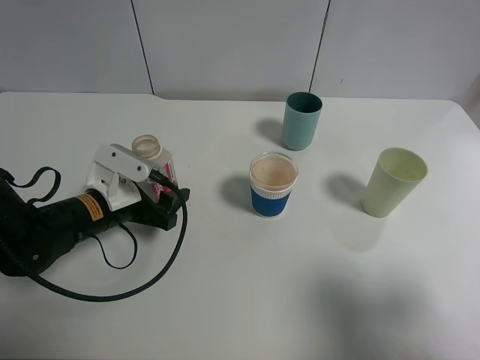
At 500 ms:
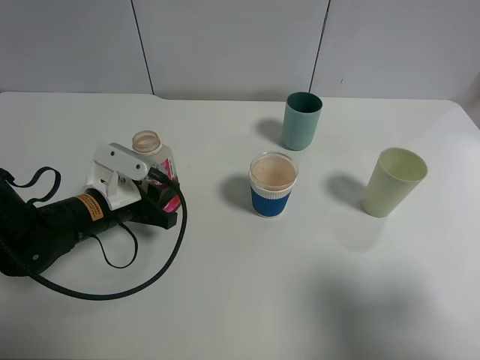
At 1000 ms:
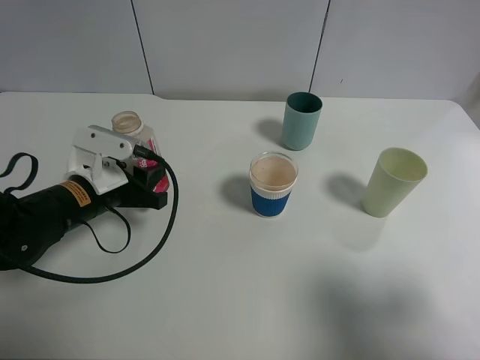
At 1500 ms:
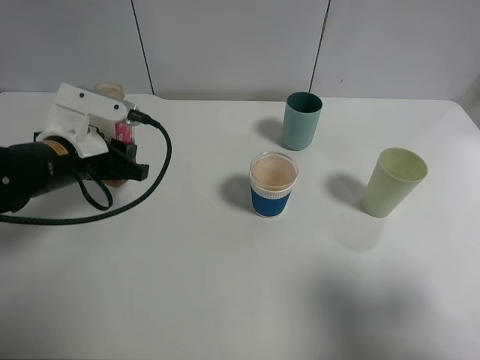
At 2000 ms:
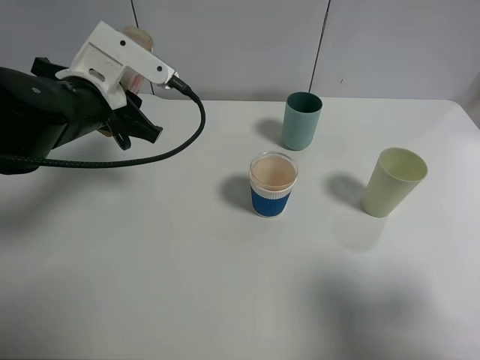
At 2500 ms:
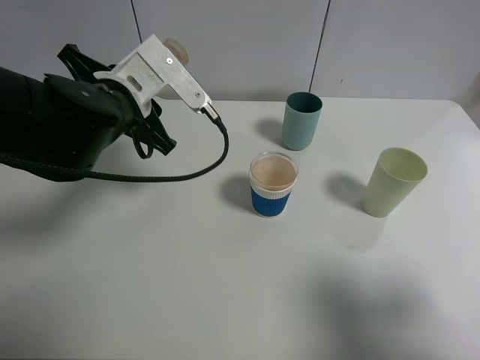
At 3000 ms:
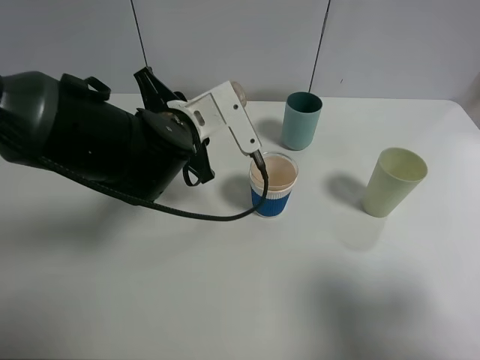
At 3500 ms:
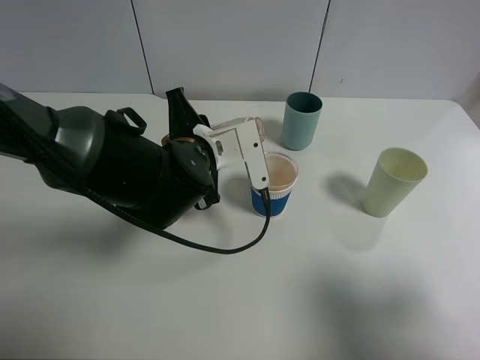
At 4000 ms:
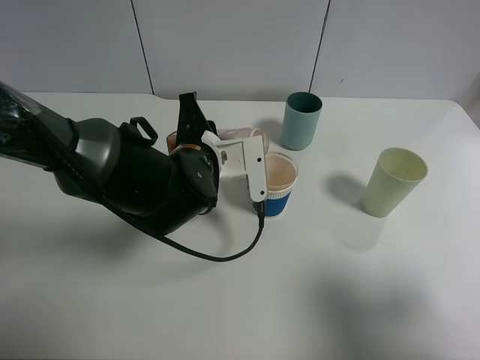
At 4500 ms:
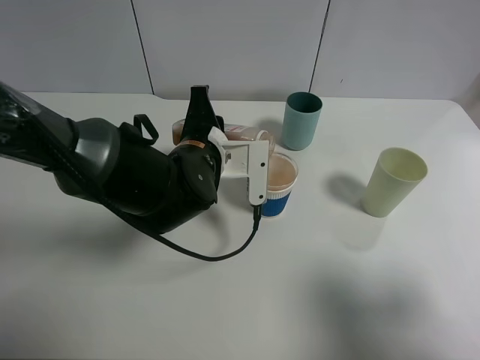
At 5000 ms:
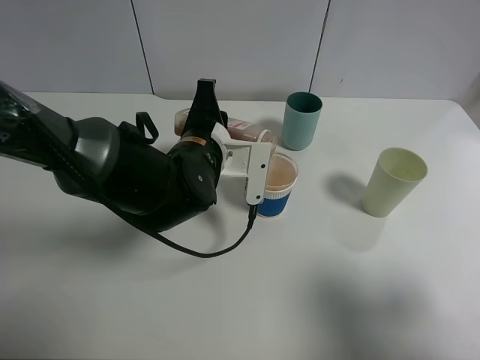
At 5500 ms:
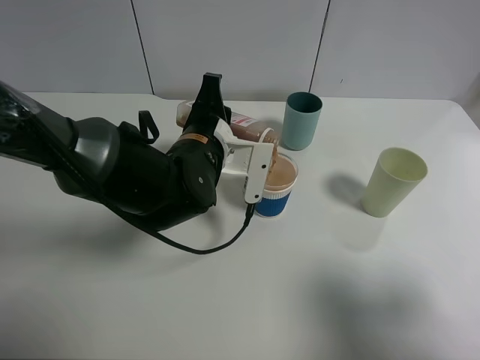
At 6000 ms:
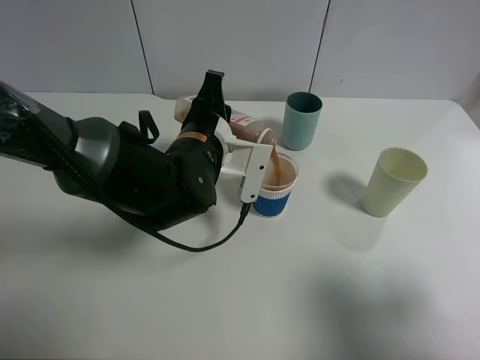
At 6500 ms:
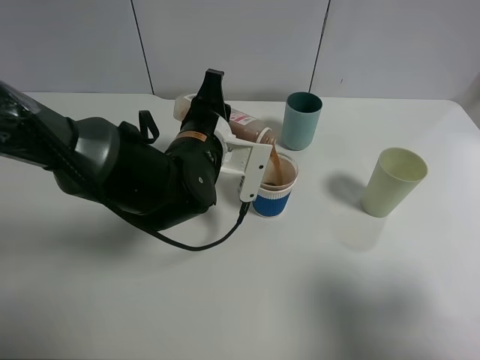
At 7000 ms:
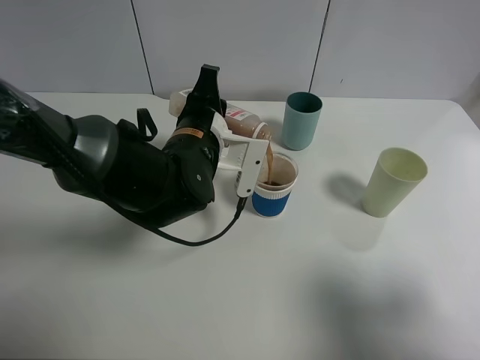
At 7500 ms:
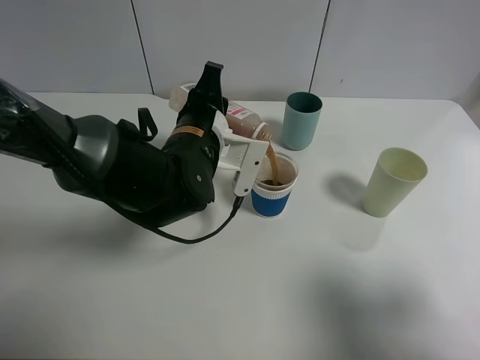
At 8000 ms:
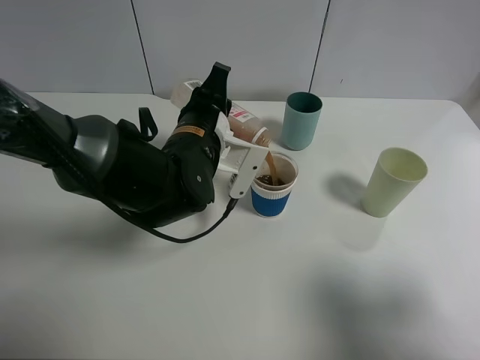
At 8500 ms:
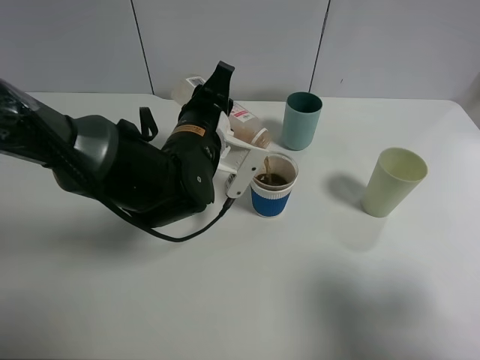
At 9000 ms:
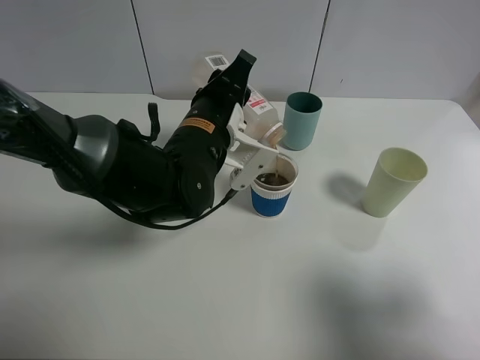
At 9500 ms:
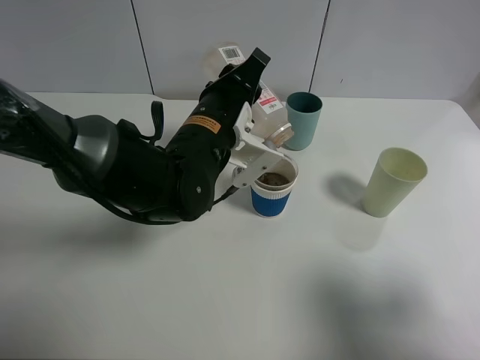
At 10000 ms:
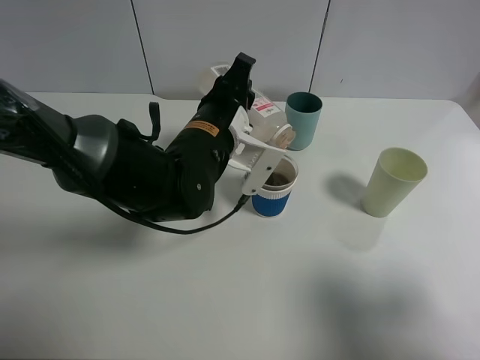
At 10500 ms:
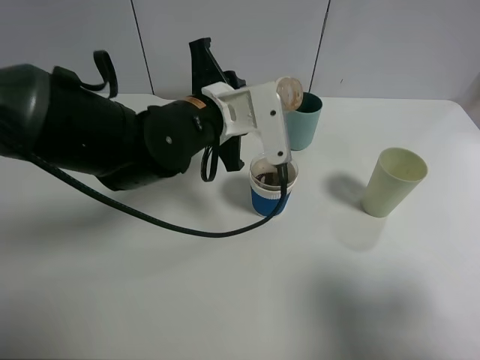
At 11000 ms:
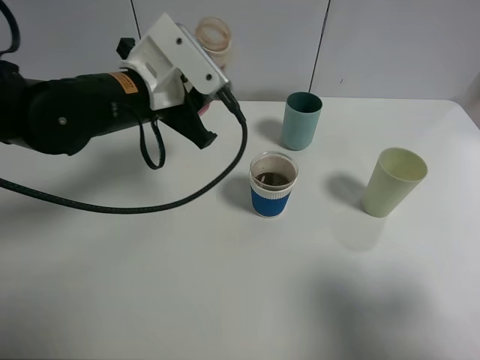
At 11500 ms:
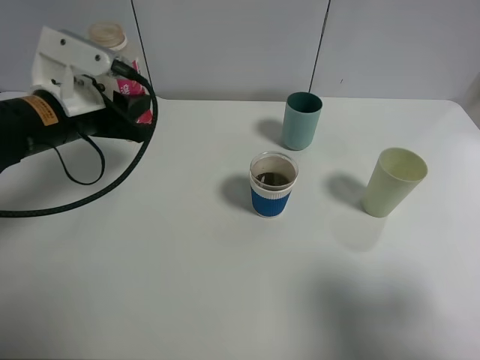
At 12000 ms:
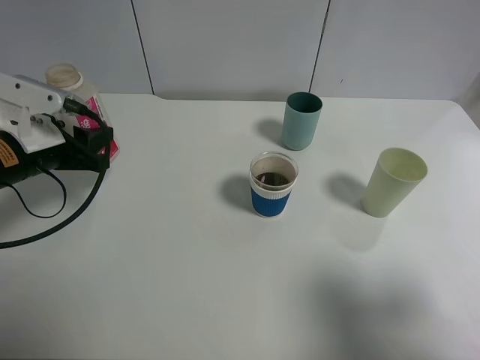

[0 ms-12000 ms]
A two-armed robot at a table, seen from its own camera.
Task of the whole recording: use a clamp to hold the bottle of the drink, pour the beverage into a random cup, then clamp the cup containing the drink and pour the drink into another random cup.
Step, 1000 ms to 10000 ms: Pour the drink into the paper cup with left gripper.
0 ms to 2000 ms: The left gripper goes roughly 15 cm upward, and closes.
2000 ms to 4000 ms: The left gripper moves to the right and downward, approximately 15 cm.
6000 ms to 8000 ms: The grippers move only a little.
10000 ms to 12000 ms: The left gripper moves to the left, roughly 20 cm.

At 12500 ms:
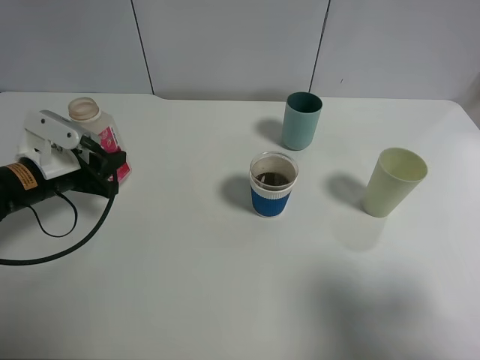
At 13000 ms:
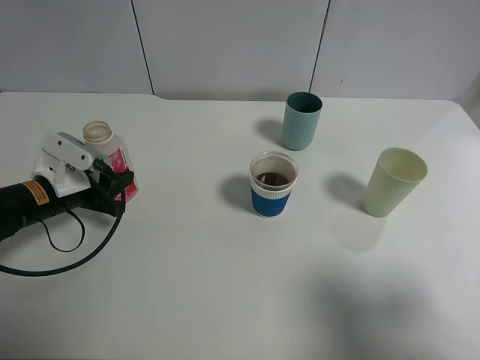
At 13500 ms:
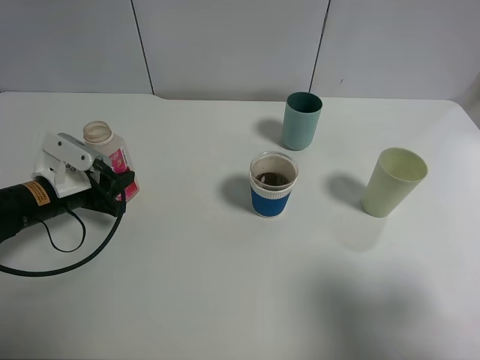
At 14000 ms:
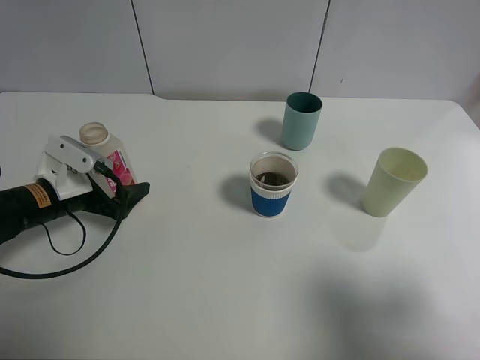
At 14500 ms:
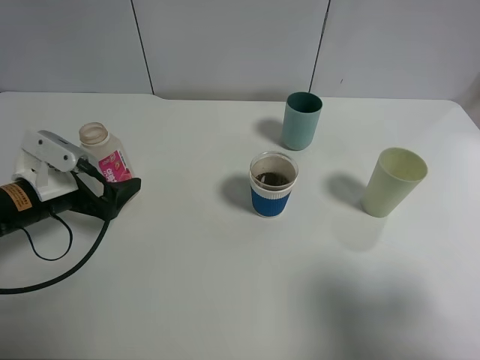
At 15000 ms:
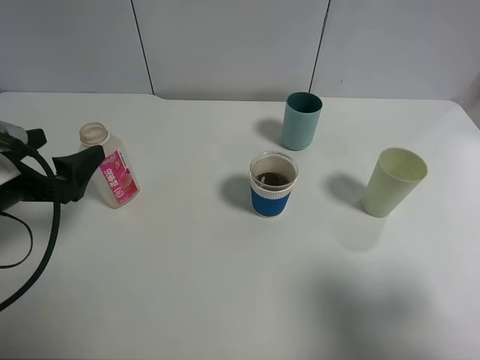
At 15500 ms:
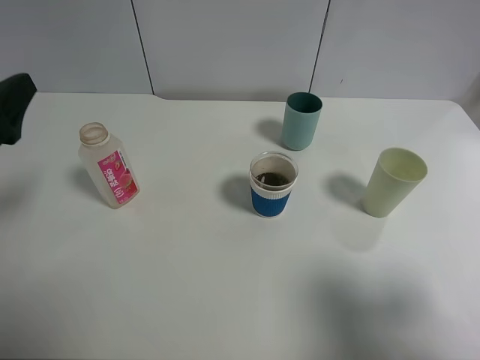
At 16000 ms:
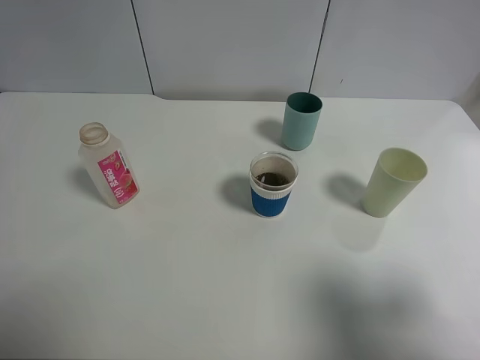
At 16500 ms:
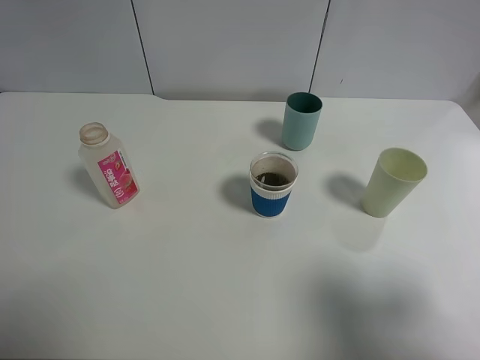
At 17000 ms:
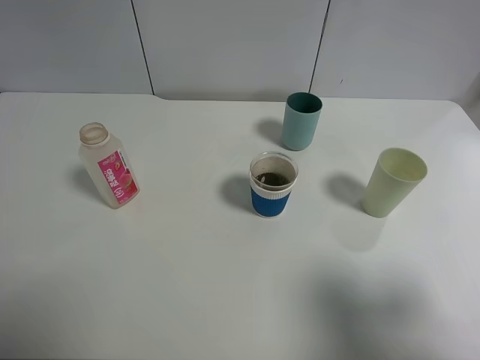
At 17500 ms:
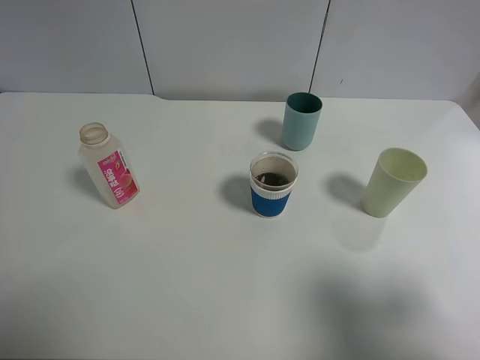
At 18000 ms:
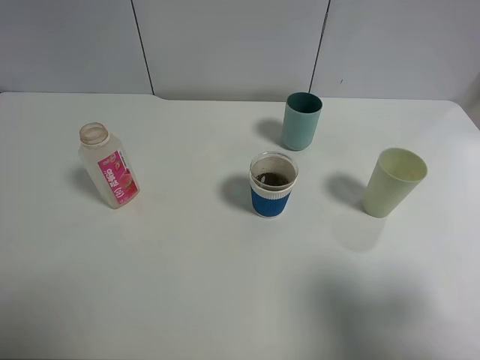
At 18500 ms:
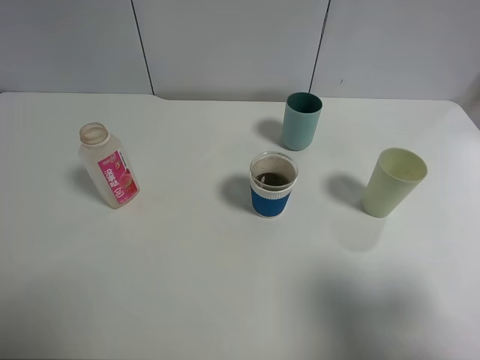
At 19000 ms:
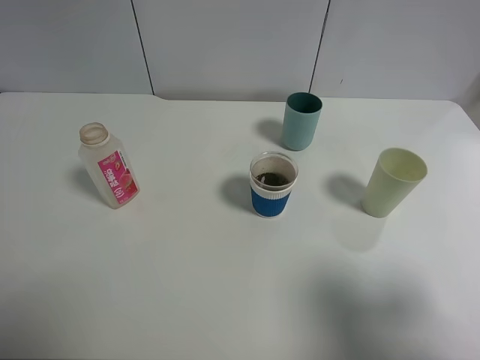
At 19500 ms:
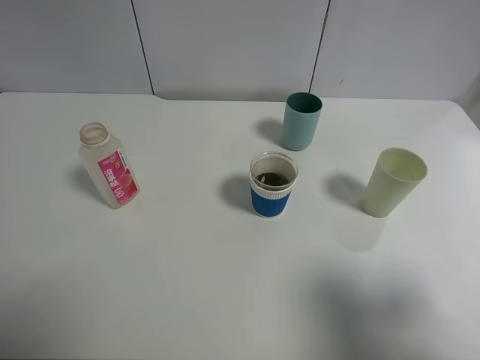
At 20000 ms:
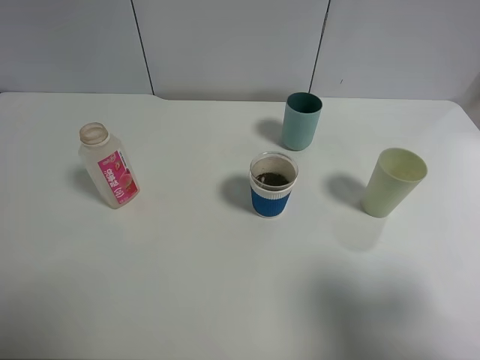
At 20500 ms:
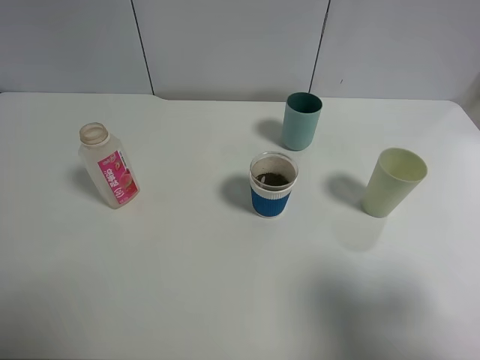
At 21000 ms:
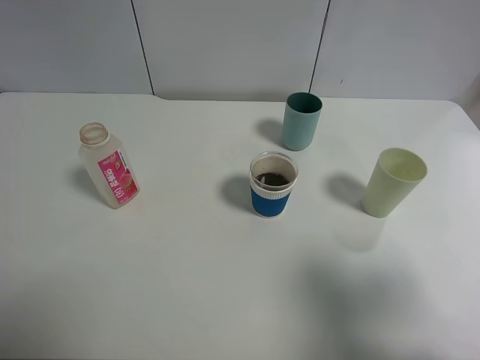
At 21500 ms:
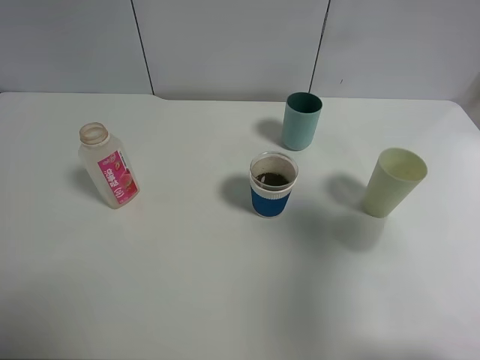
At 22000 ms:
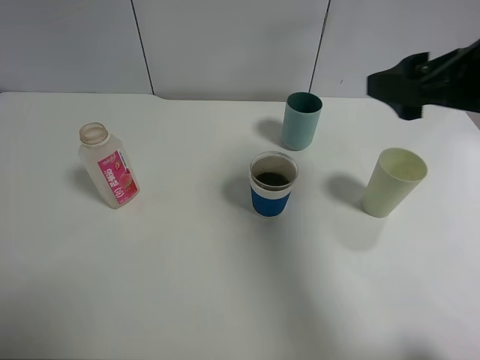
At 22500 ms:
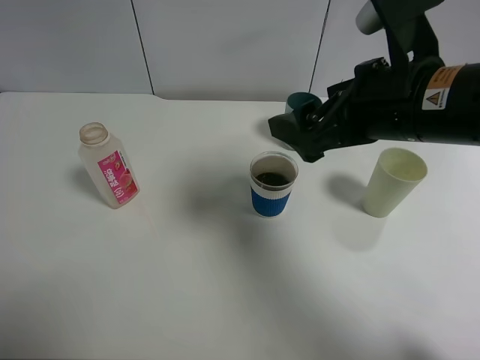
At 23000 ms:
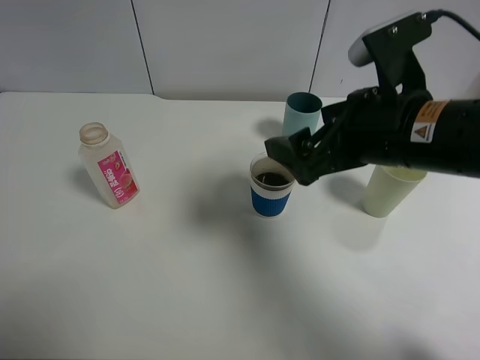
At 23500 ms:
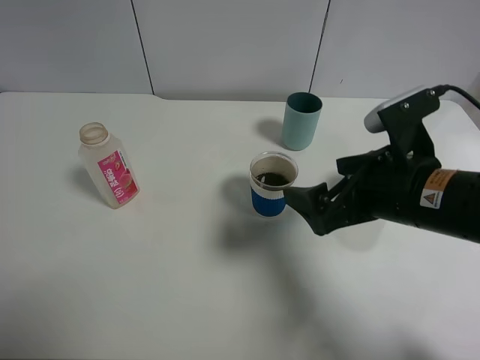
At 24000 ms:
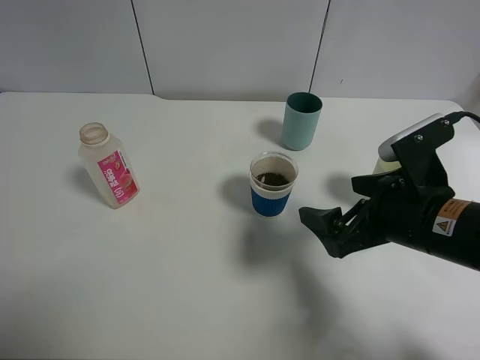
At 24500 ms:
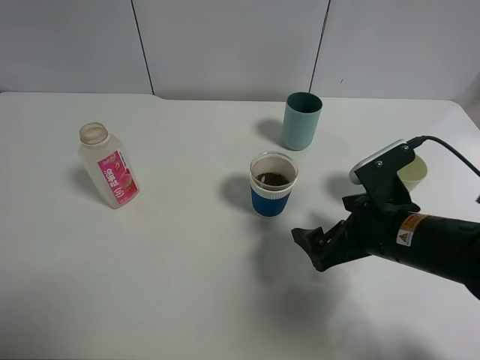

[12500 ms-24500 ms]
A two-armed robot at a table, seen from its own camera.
Task of the whole recording: use a clamp to hold the bottle of the drink, pour the beverage into a random cup, then clamp the cup containing the drink and pour the drink into another random cup.
Step, 12500 ms to 14500 ms: Place the drink bottle on the table with left gripper.
12500 ms to 14500 ms: The left gripper opens.
14500 ms to 16500 ms: The left gripper is displaced upward and backward by about 25 cm.
18500 ms to 20500 ms: Both grippers stay about where they are.
20500 ms to 22500 ms: The right gripper moves forward and to the left, some 25 cm.
22500 ms to 24500 ms: The right gripper is displaced downward by roughly 15 cm.

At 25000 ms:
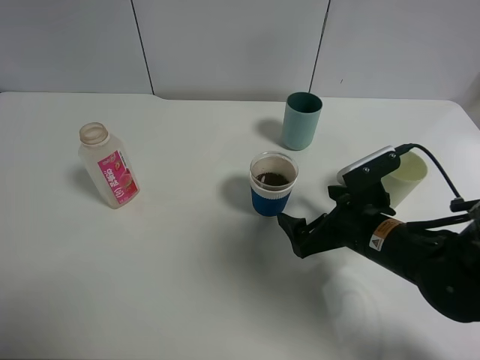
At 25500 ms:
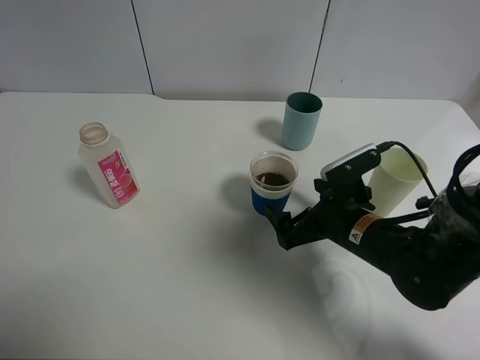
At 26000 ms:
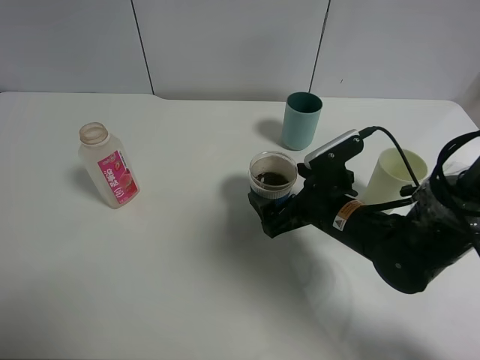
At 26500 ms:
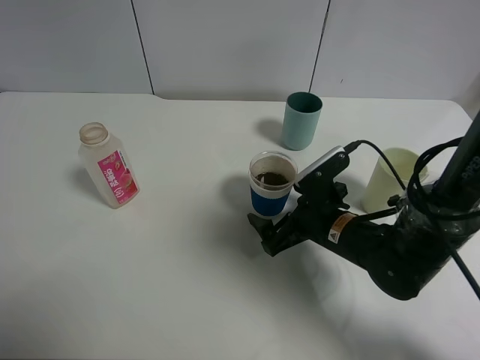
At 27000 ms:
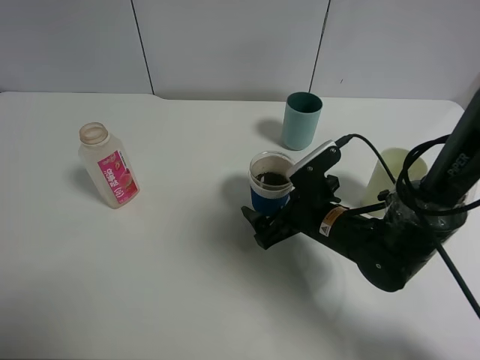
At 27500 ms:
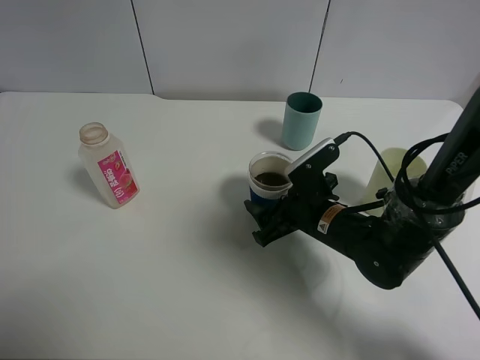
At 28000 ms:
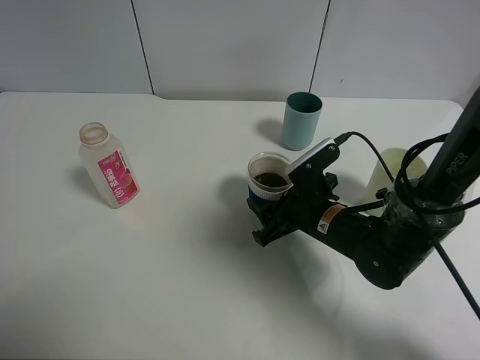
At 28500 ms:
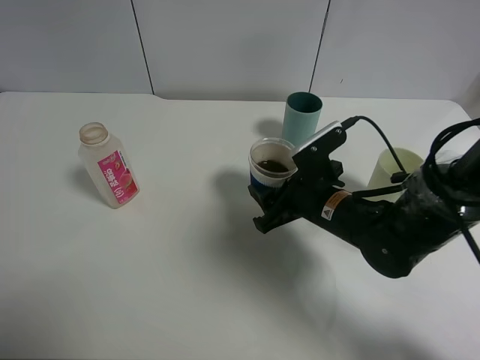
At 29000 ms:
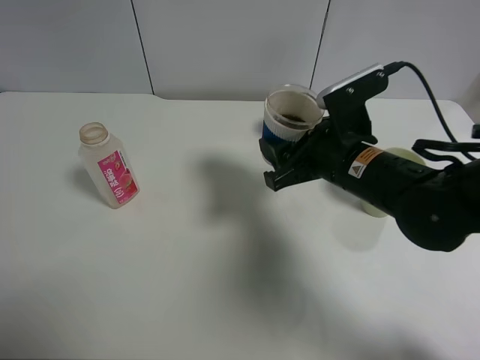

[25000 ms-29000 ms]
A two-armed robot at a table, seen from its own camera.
Task of the whole recording: use a clamp to hold the bottle of the drink, pour the beverage into a random cup, then clamp the cup containing the drink and pour the drink into another random cup.
Step, 25000 ms to 28000 ms: Pick up the paper cup with right gripper.
25000 ms to 27000 ms: The right gripper moves roughly 5 cm.
27000 ms to 29000 ms: The right gripper is displaced upward by about 10 cm, and closes.
